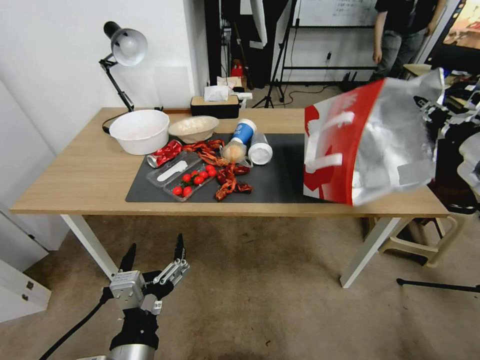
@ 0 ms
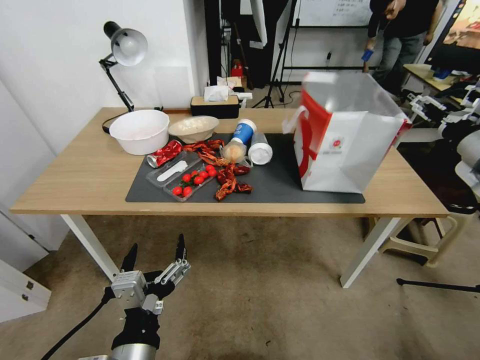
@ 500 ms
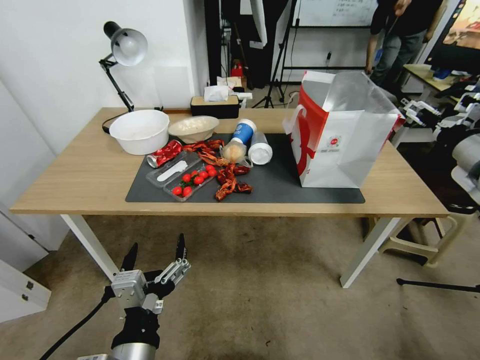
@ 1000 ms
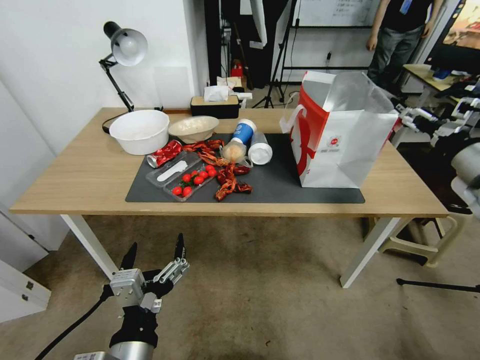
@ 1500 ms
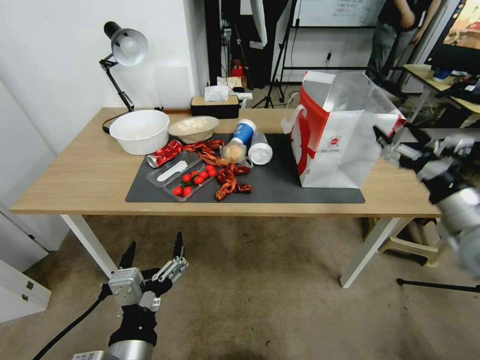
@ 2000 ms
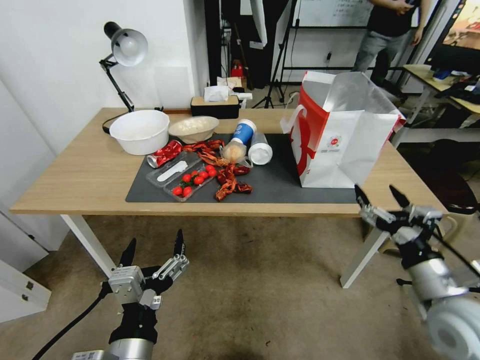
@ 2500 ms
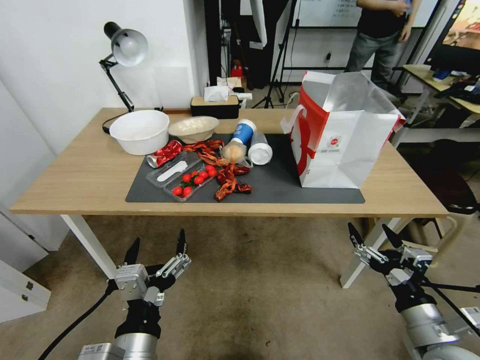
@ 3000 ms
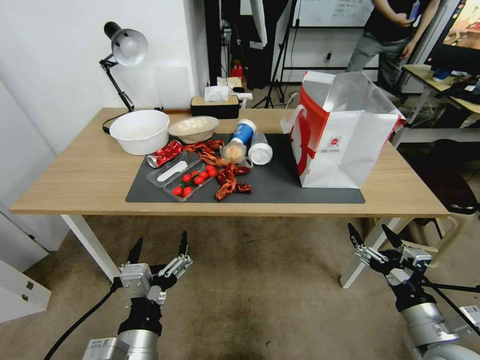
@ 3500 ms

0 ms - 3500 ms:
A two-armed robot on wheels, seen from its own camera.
Task of the whole recording: Pick up the food delivery bag from the floor and place it on the table.
0 ms - 2000 ms: The right gripper goes some 5 cm backward, and opens up.
2000 ms - 3500 ms: The right gripper goes some 25 cm downward, backward and to the left.

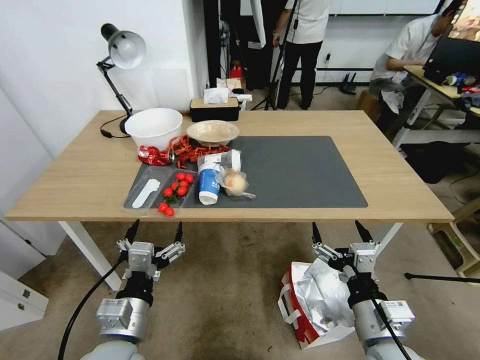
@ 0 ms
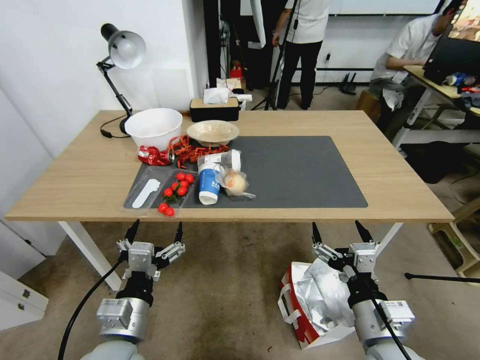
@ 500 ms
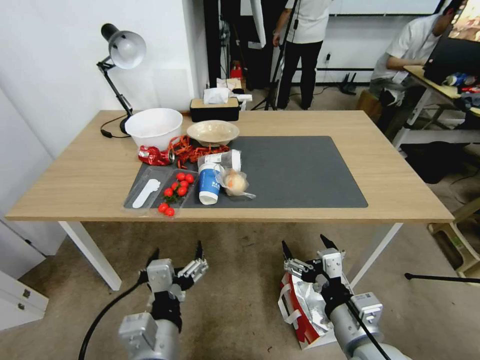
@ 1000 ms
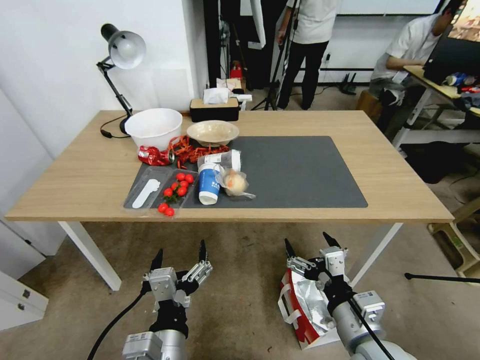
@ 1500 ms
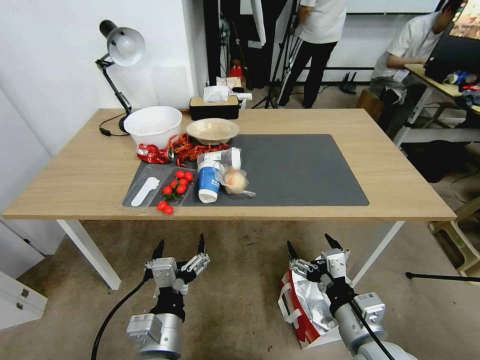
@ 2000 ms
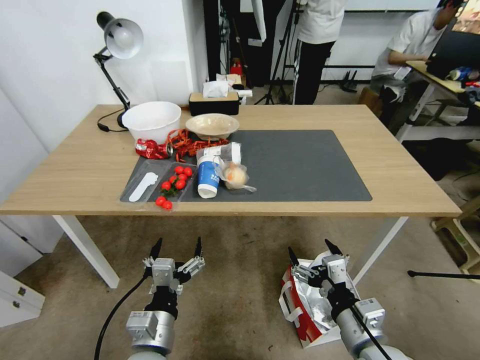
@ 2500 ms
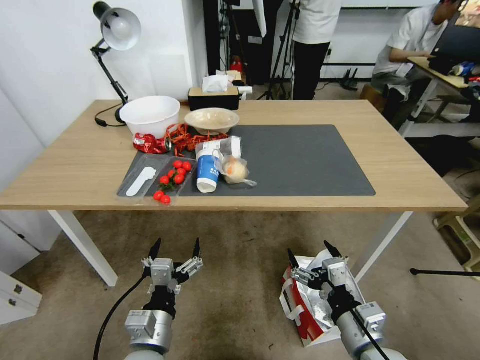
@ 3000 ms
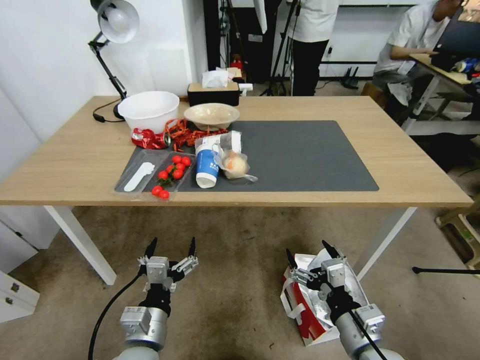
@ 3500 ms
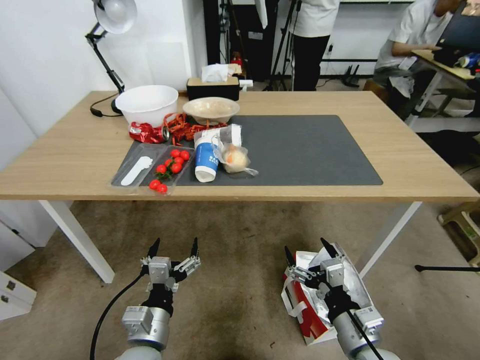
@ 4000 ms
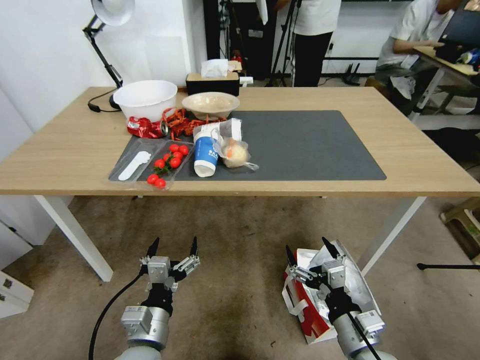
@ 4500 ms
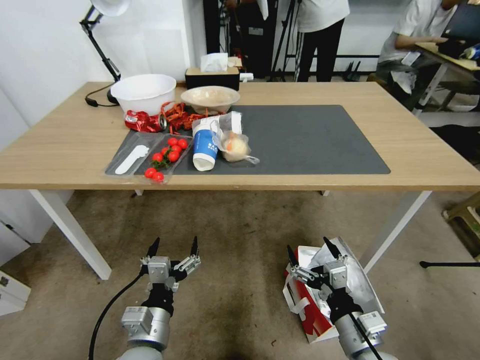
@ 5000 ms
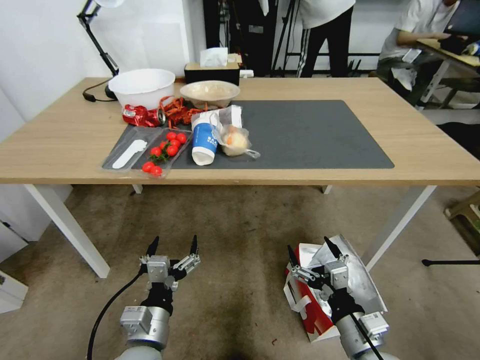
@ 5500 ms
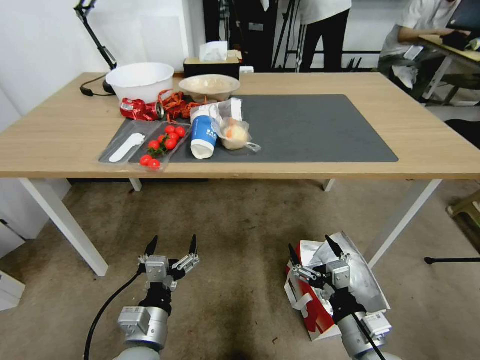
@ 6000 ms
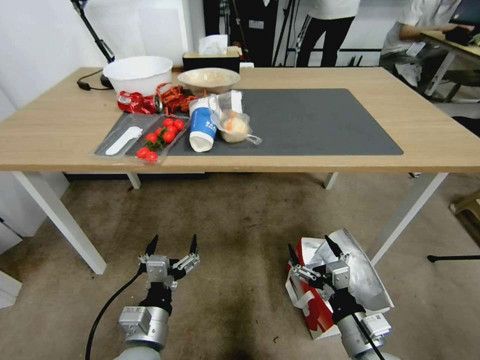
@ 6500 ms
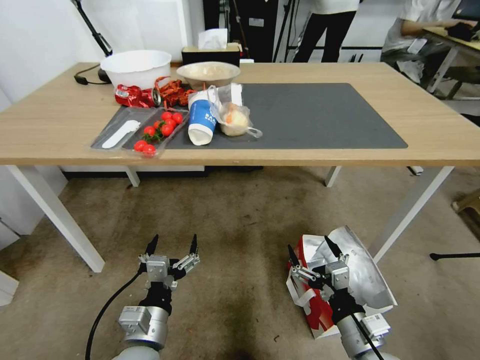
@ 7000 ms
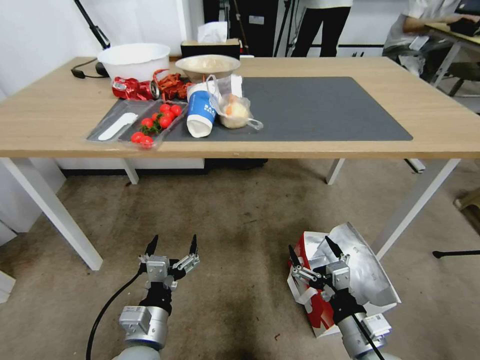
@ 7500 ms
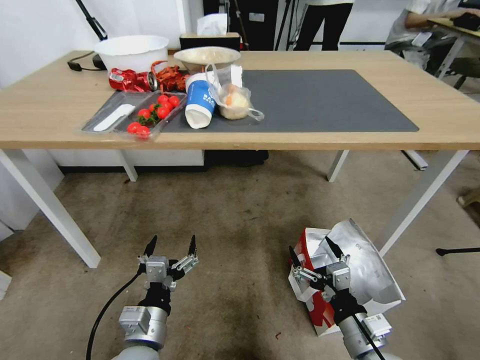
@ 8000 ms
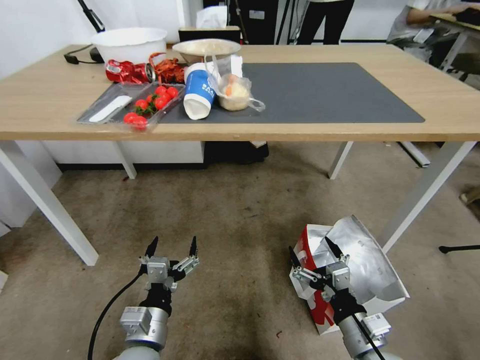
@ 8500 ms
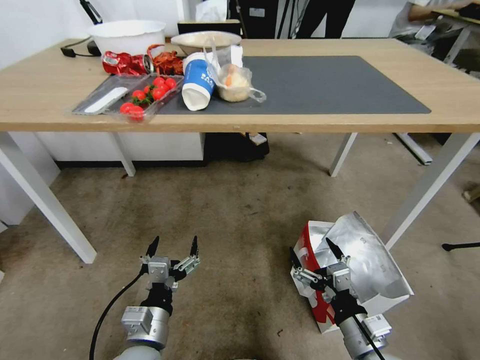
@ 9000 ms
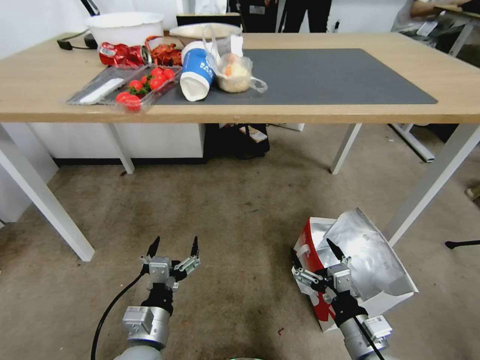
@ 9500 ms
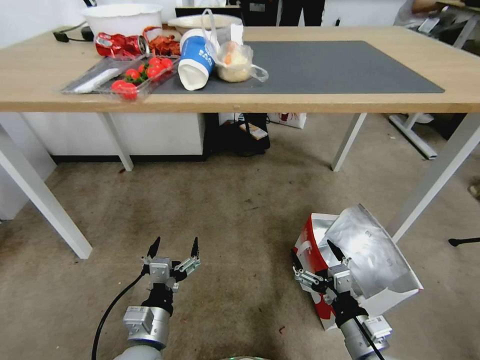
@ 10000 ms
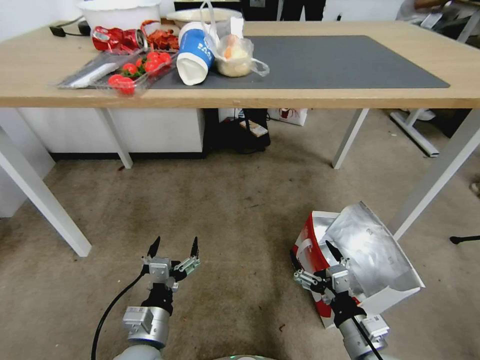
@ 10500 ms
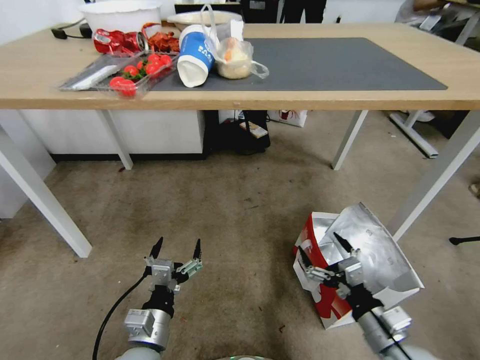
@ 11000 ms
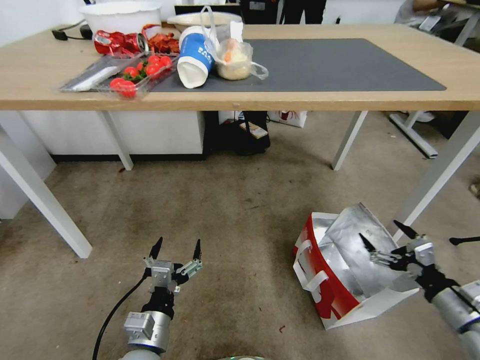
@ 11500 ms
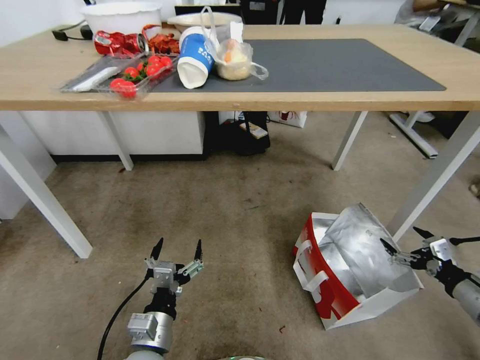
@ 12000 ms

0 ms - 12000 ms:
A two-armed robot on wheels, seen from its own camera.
Task of the whole recording: Pick up the food delivery bag from the floor and place it on the table.
2000 ms - 4000 ms: The left gripper ends up approximately 5 cm from where it was.
10000 ms - 12000 ms: The right gripper travels to the right by some 25 cm.

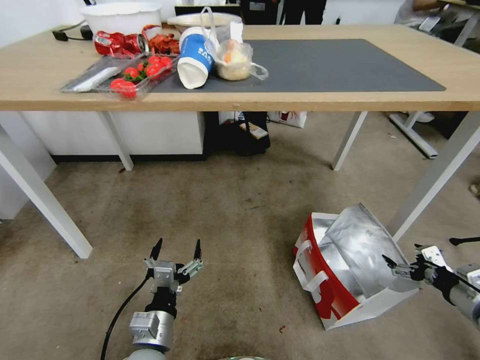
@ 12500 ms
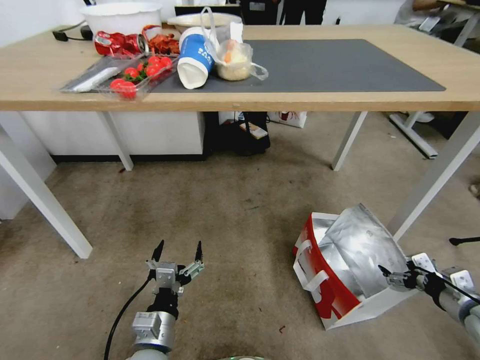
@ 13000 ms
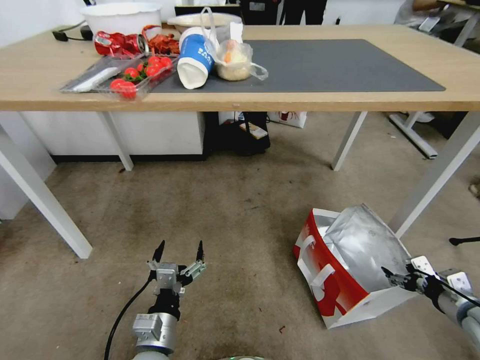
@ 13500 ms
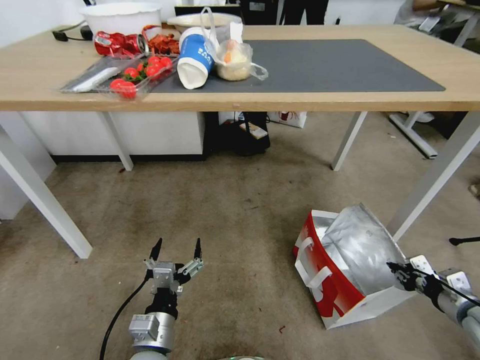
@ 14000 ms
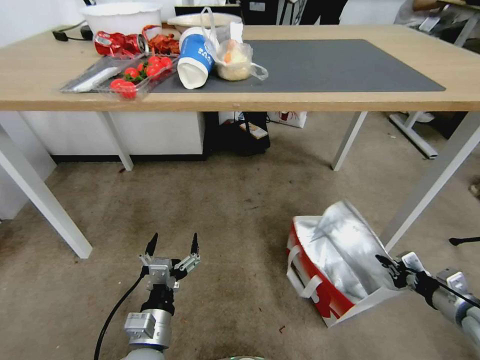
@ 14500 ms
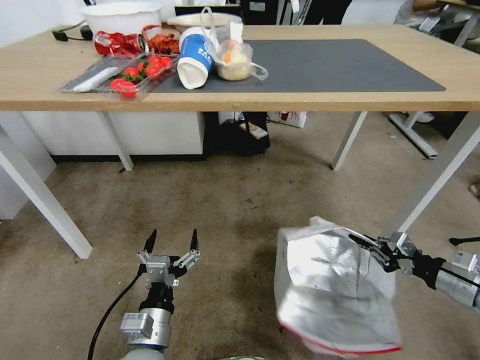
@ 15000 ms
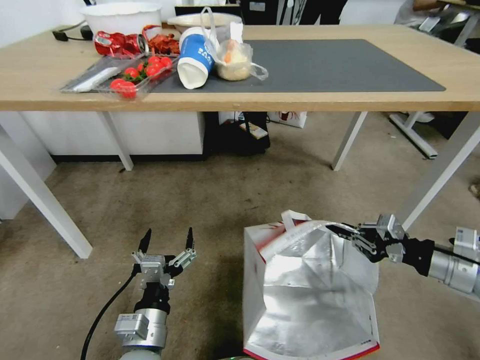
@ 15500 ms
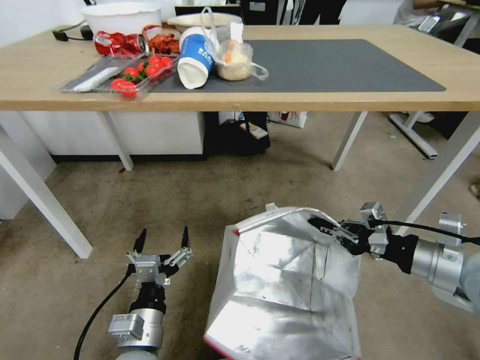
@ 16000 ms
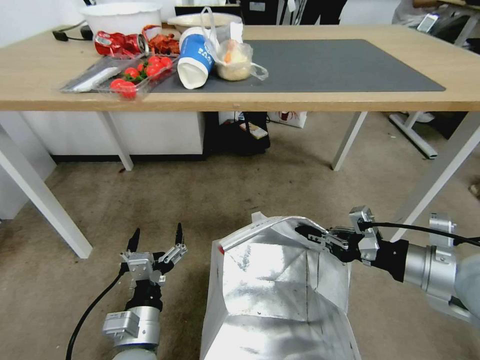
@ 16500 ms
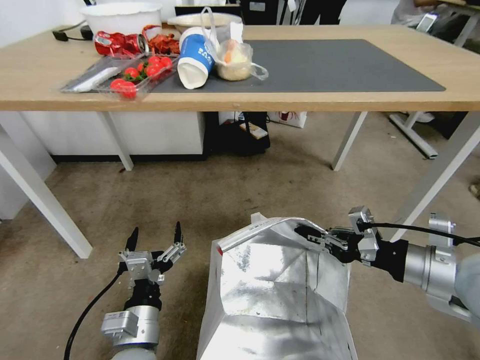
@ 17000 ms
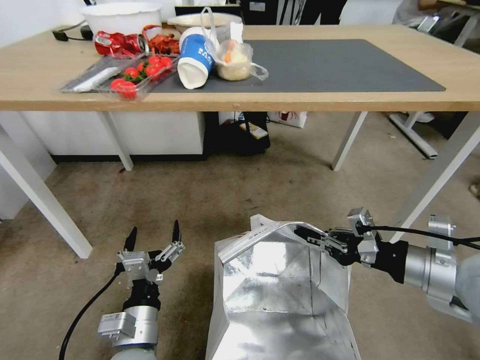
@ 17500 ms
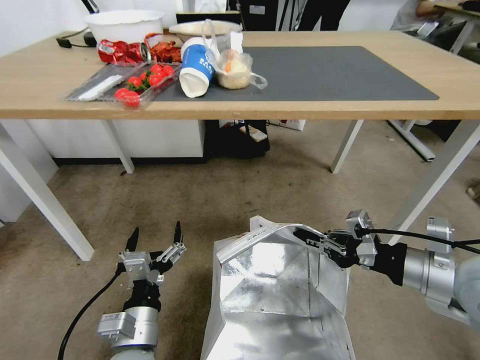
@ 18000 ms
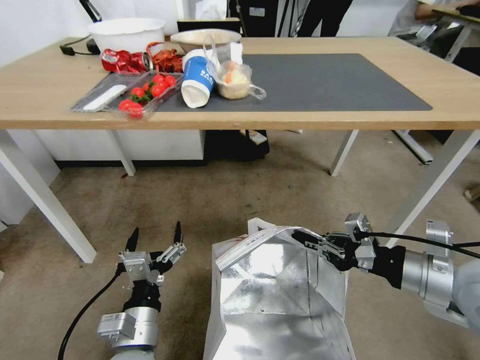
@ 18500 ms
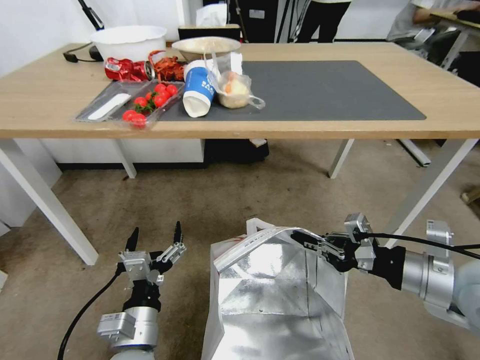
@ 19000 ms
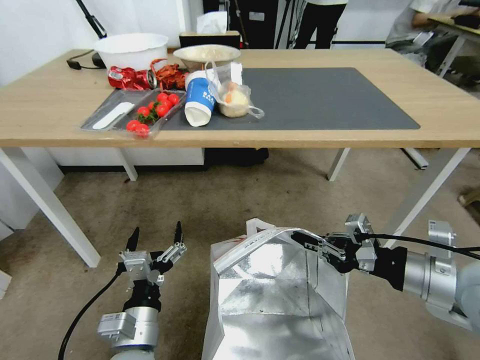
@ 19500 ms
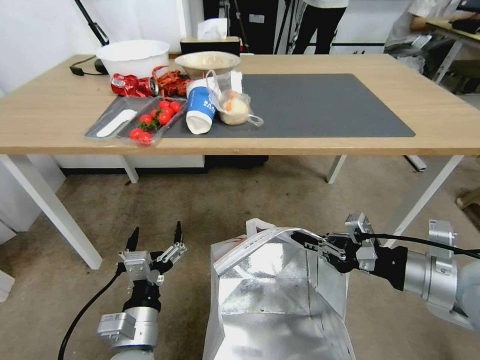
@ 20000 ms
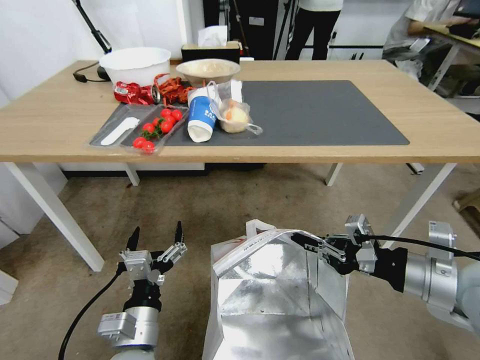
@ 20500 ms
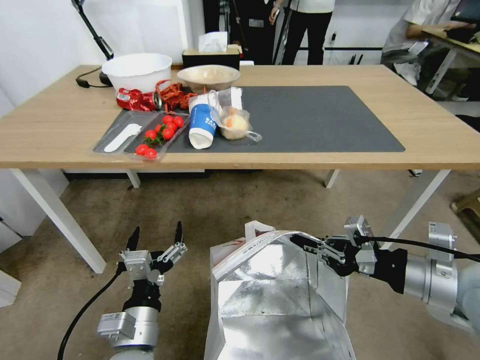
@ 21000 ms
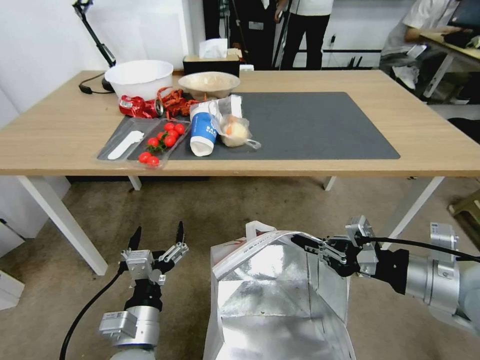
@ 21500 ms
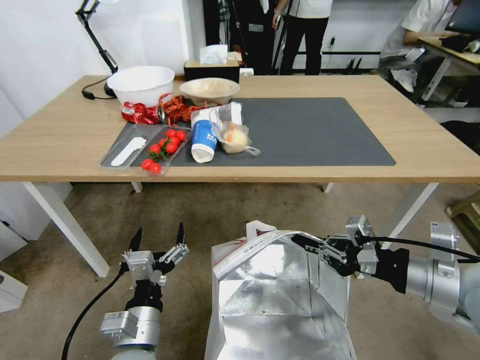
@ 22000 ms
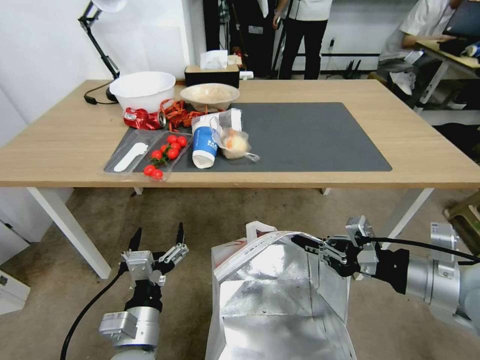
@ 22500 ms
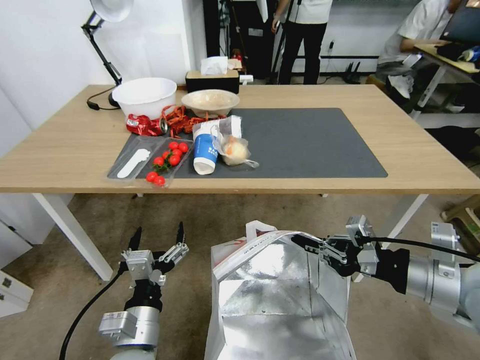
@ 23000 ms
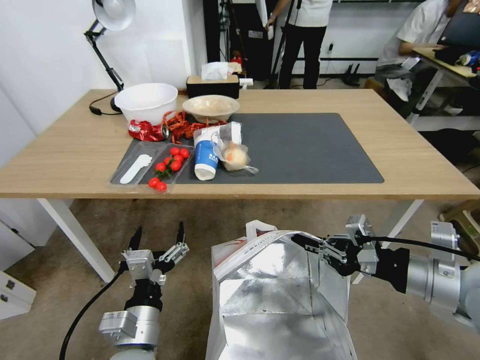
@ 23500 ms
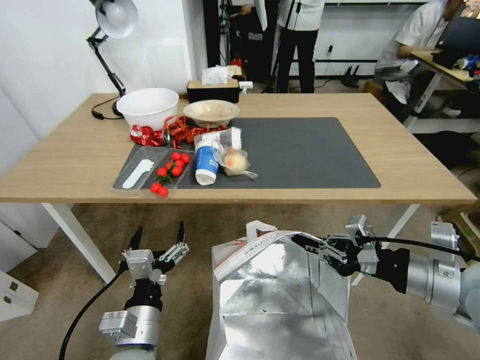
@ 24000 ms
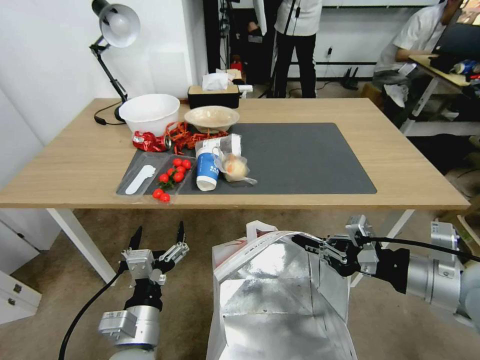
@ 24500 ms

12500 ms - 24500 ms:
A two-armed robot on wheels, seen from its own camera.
Task of the whole recording: Pick up the food delivery bag from the floor and place it on the table.
12500 ms - 14500 ms: The right gripper closes up.
14500 ms - 16500 ms: The right gripper is displaced upward and to the left by roughly 25 cm.
